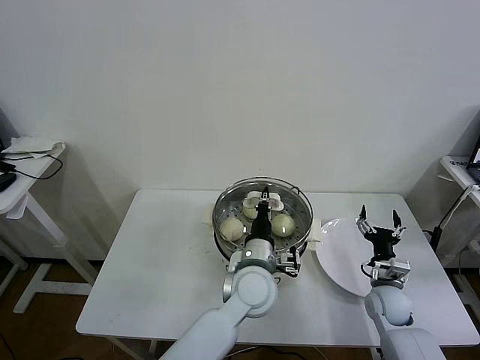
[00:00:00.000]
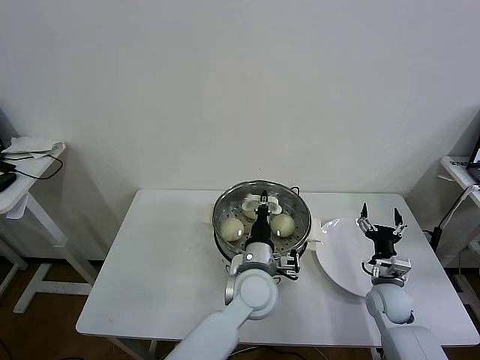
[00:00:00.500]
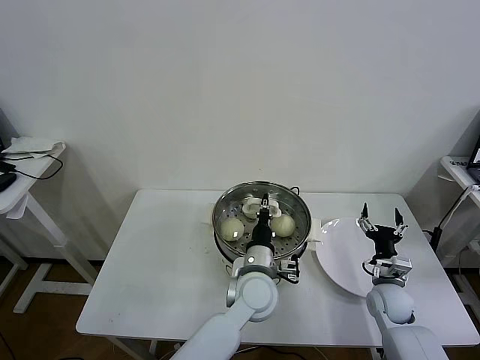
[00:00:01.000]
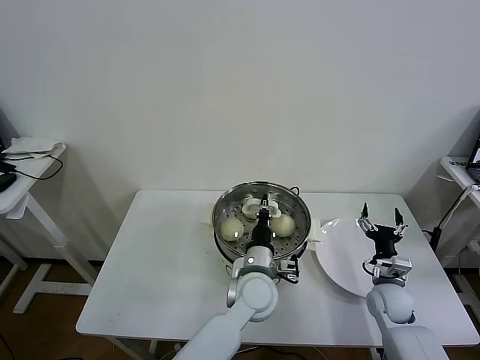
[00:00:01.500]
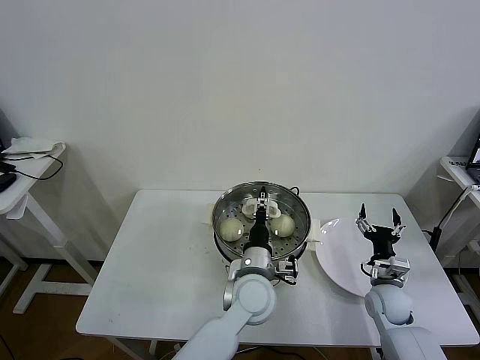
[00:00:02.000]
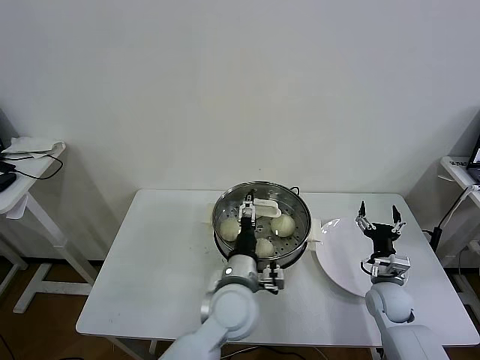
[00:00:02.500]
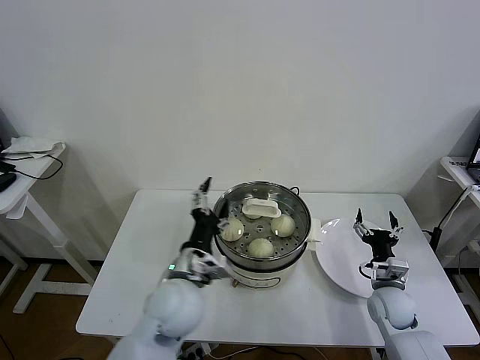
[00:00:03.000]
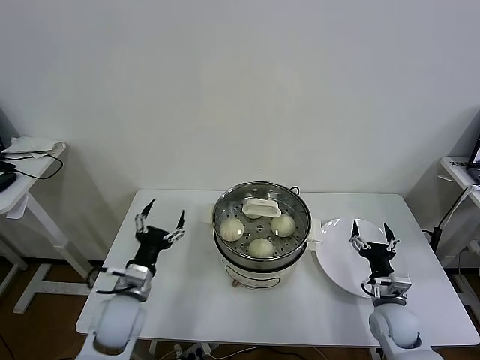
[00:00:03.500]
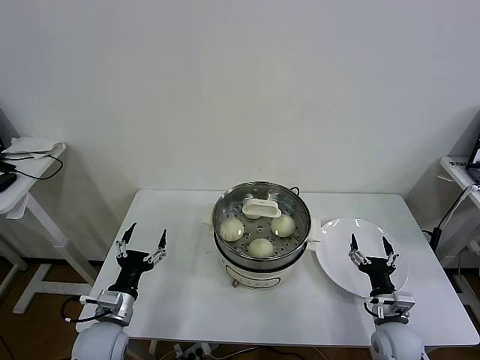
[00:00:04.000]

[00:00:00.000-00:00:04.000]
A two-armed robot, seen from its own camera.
Task of the whole recording: take steamed baozi put them in steamer then cover it.
Step, 00:00:00.000 to 00:00:02.000: Place the pot lid on the steamer with left gripper.
00:00:00.000 to 00:00:02.000: The left gripper opens its fingers.
00:00:02.000 to 00:00:04.000: The left gripper moves to the left, about 30 cm, and opens its fingers; the right gripper travels backward by some 10 cm.
